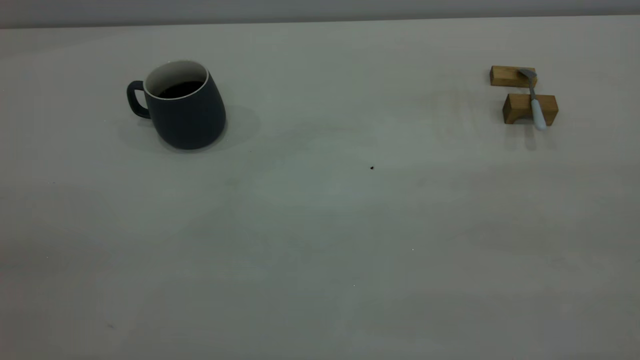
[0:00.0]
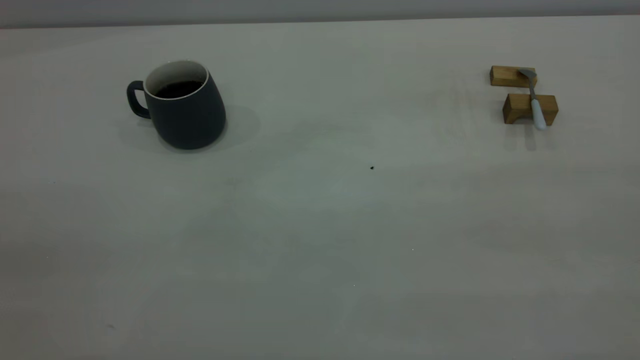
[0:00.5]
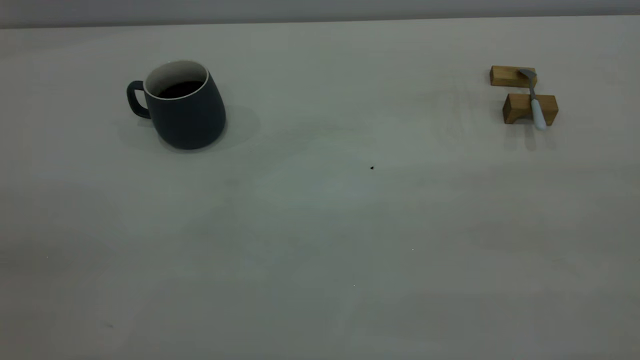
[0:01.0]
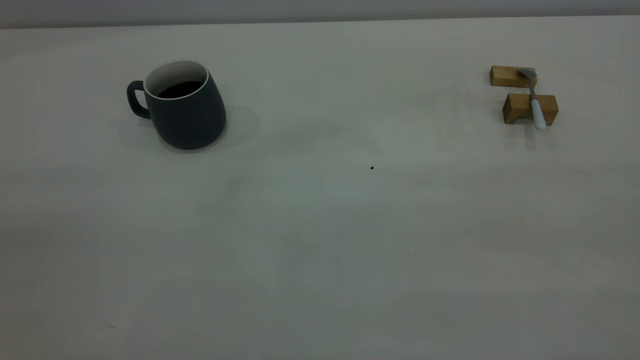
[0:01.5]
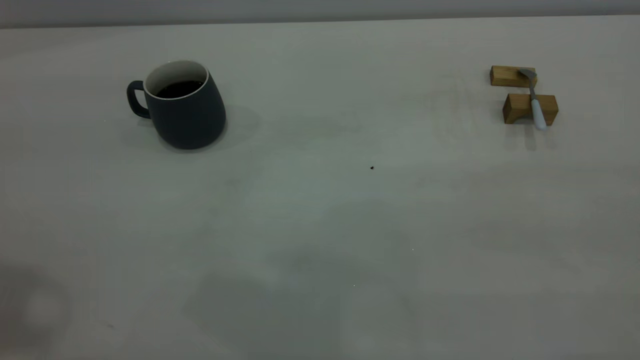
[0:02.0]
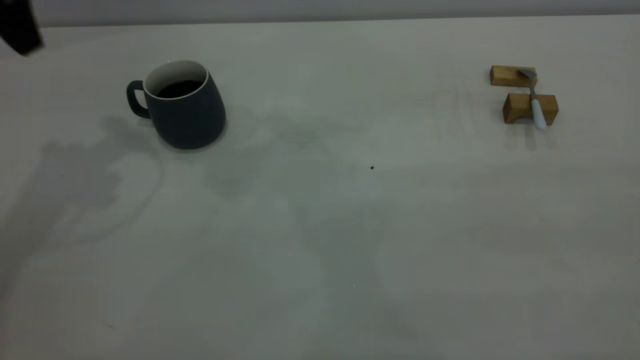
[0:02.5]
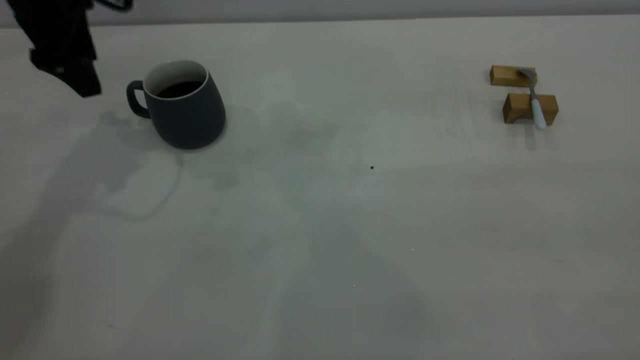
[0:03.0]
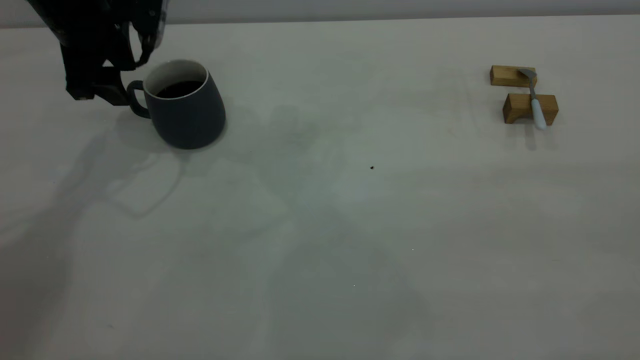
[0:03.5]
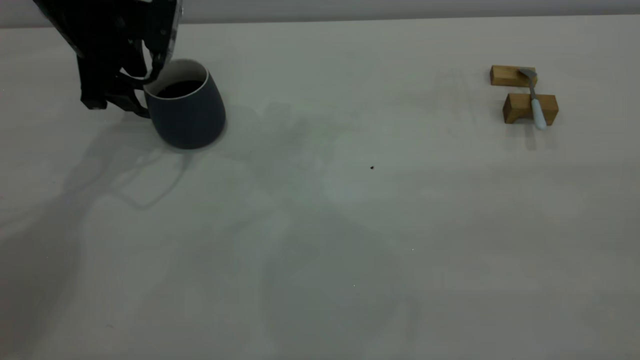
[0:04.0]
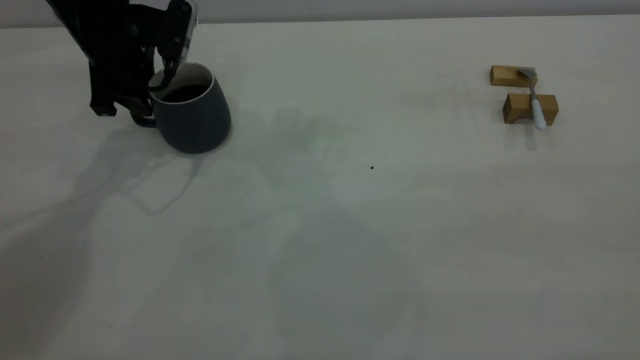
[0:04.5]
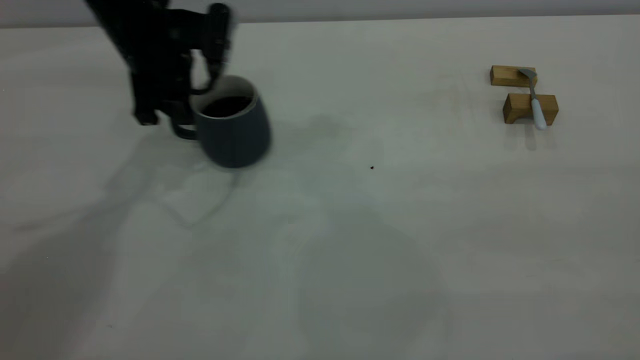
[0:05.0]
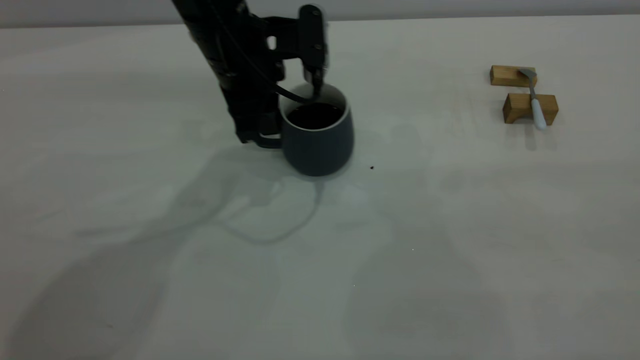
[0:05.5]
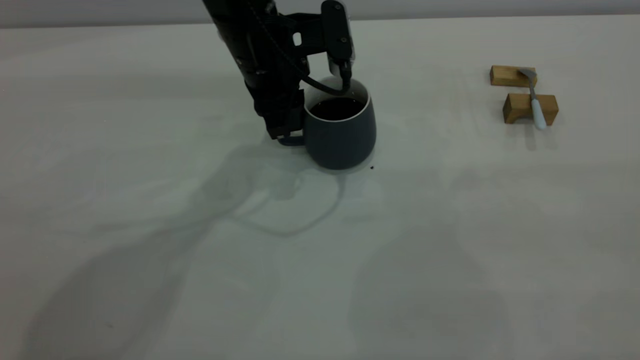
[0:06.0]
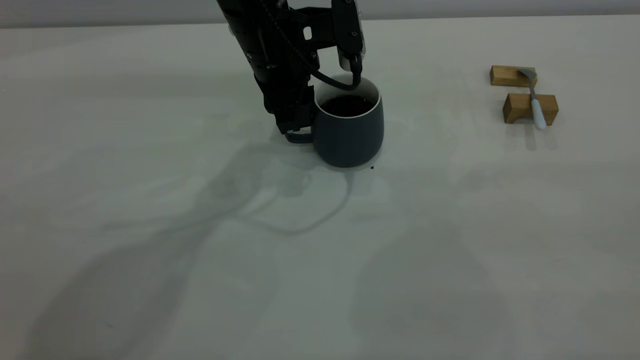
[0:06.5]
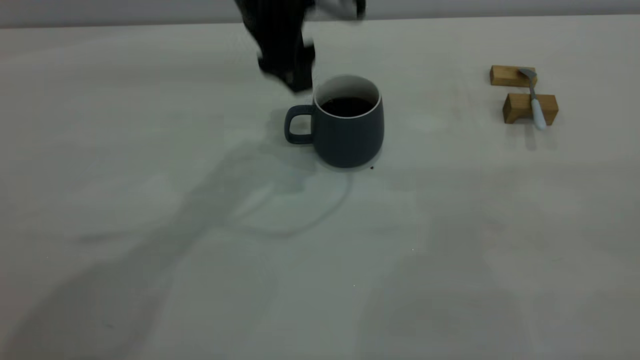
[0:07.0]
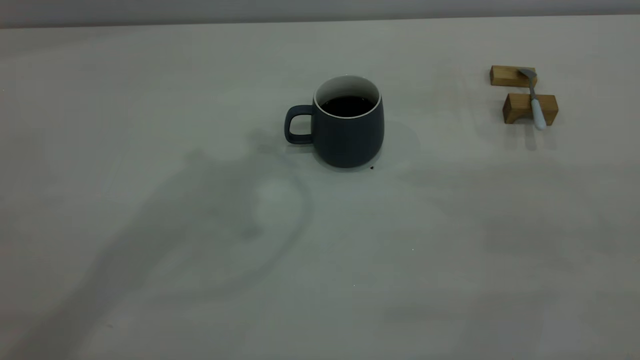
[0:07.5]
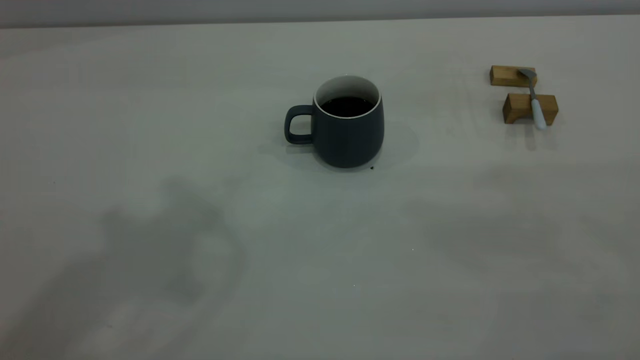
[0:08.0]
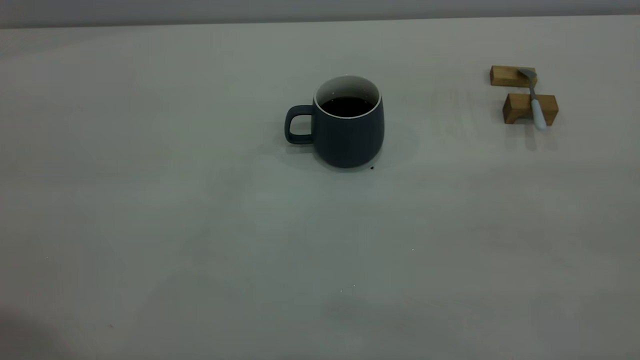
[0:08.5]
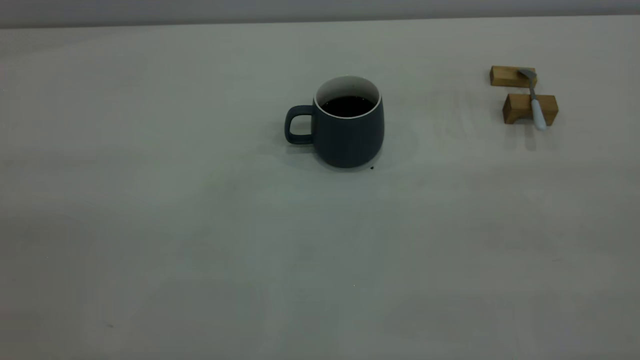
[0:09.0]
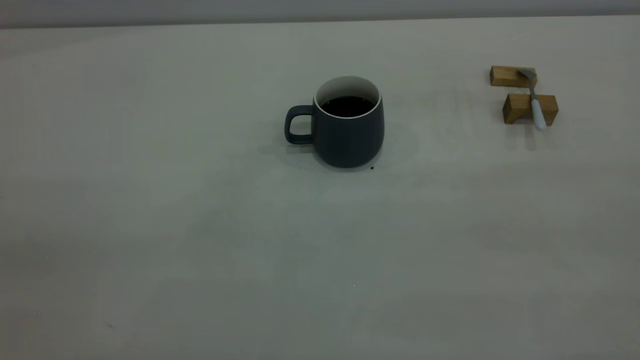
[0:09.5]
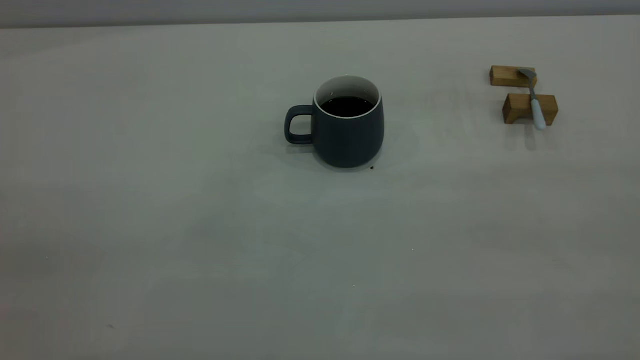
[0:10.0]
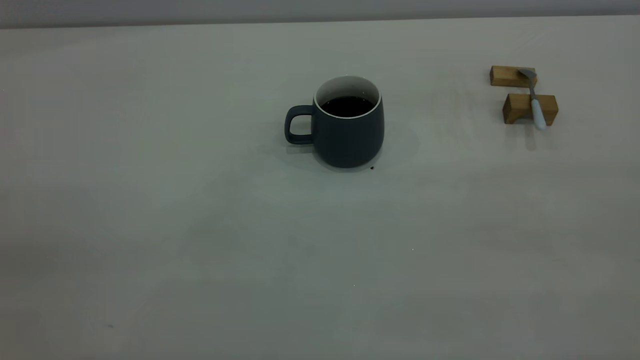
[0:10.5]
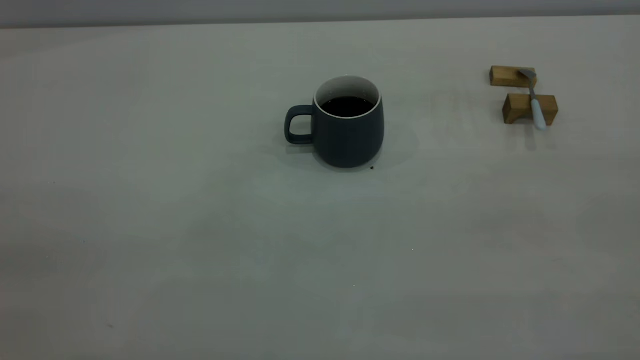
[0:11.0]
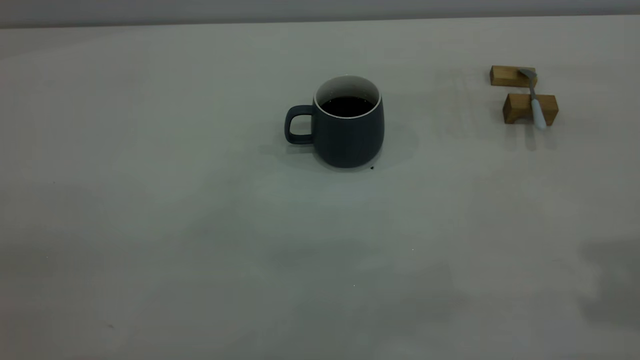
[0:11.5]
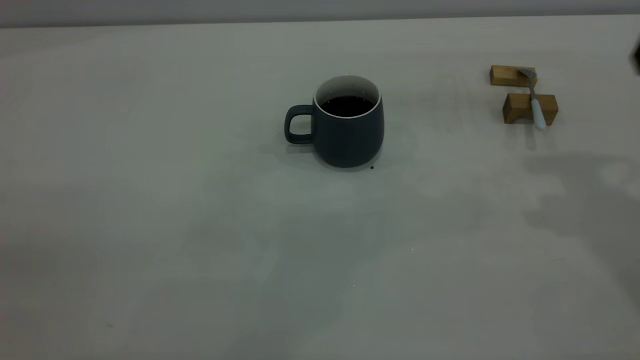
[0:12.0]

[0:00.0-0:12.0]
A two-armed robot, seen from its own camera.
Step, 0:00.0 to 0:07.0: Move the cup with coffee to the center of view.
0:02.0 to 0:04.0: The left gripper moves forward and downward, approximately 35 cm, and opens up.
0:04.0 to 0:06.0: The left gripper shifts approximately 20 cm to the right, and closes.
0:06.0 to 0:08.0: The left gripper goes some 40 cm upward and backward, and opens, then closes once more.

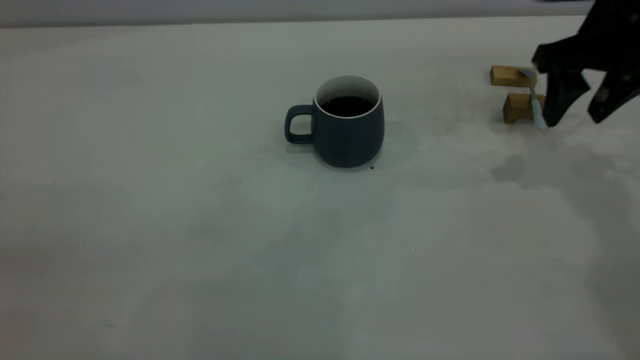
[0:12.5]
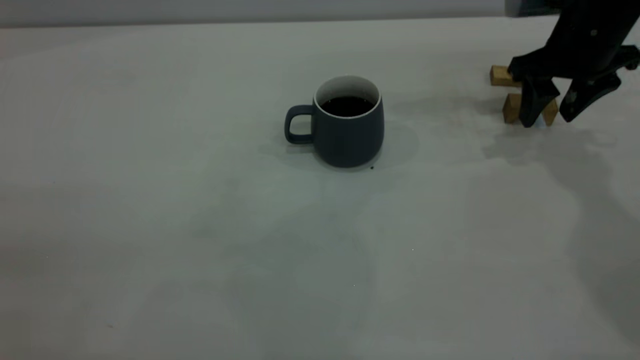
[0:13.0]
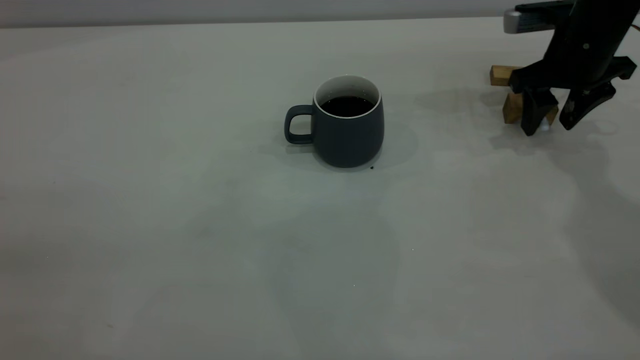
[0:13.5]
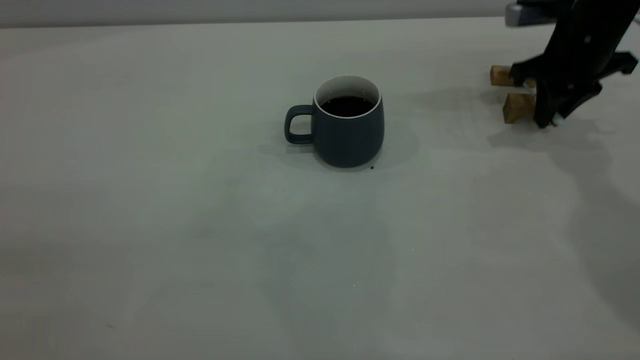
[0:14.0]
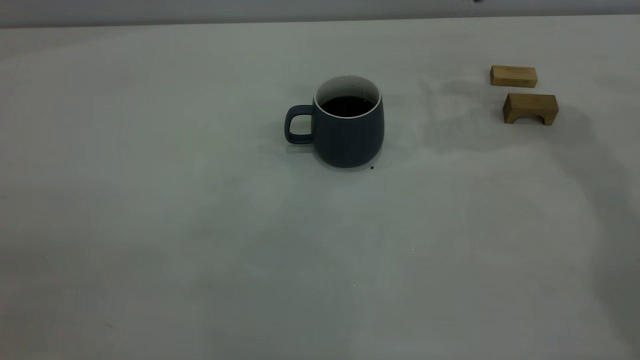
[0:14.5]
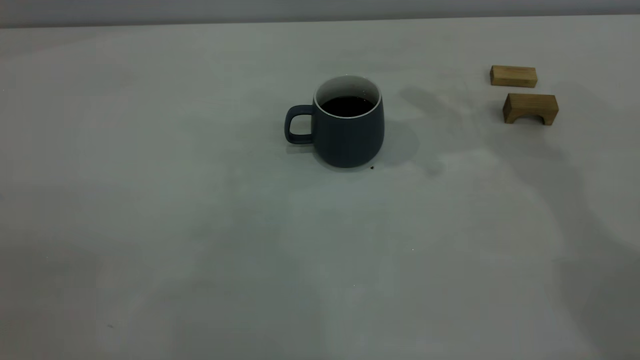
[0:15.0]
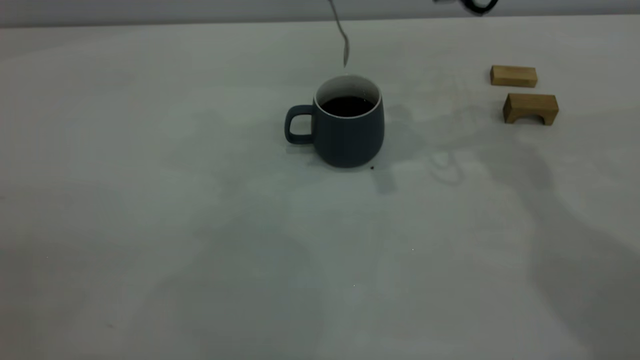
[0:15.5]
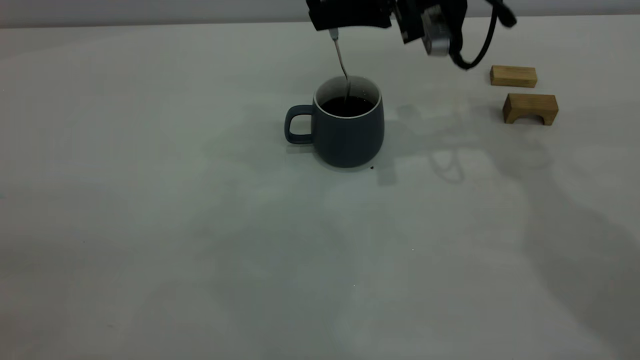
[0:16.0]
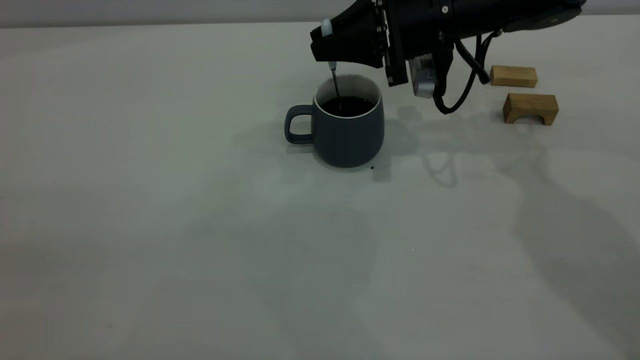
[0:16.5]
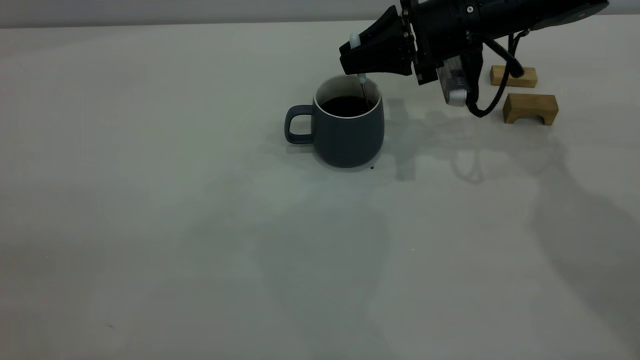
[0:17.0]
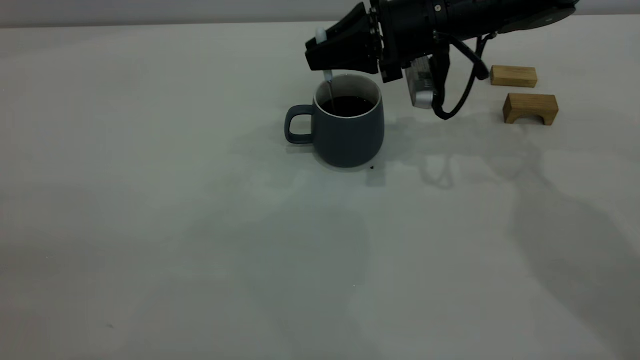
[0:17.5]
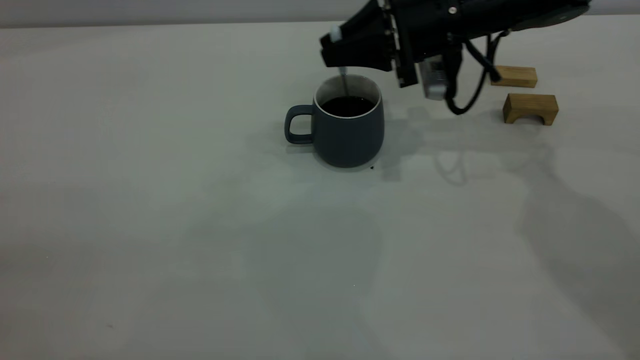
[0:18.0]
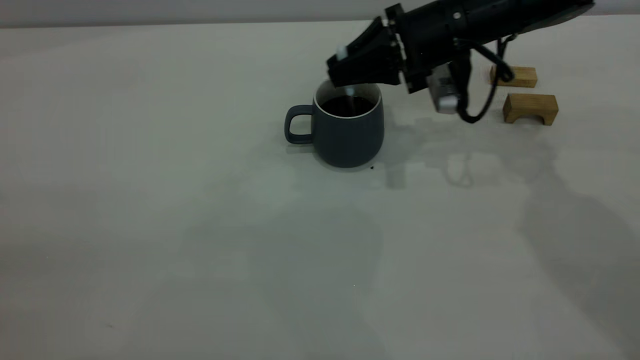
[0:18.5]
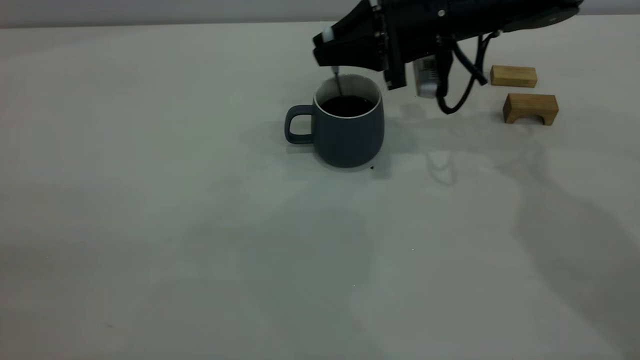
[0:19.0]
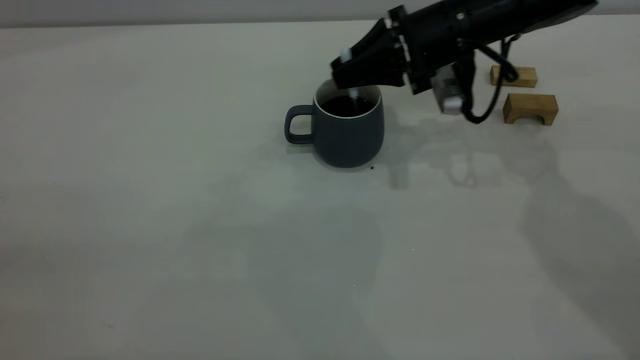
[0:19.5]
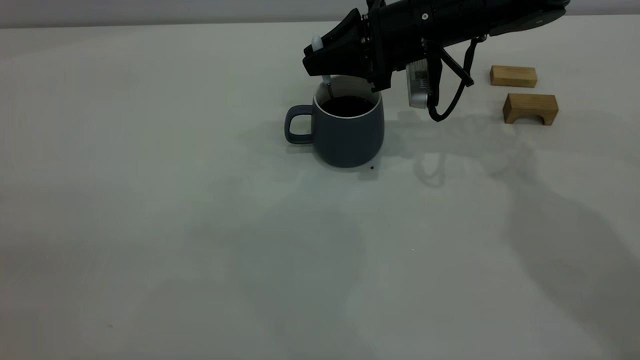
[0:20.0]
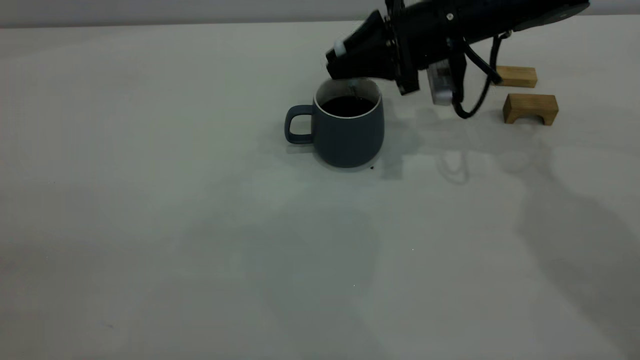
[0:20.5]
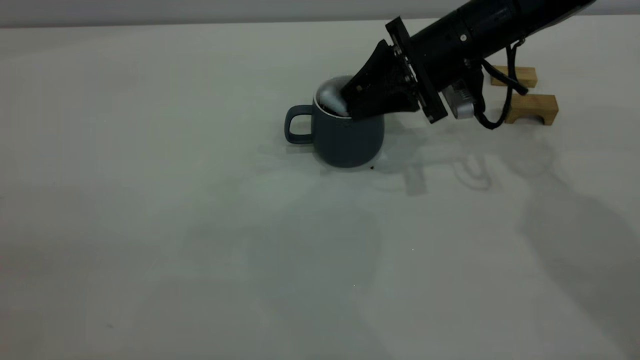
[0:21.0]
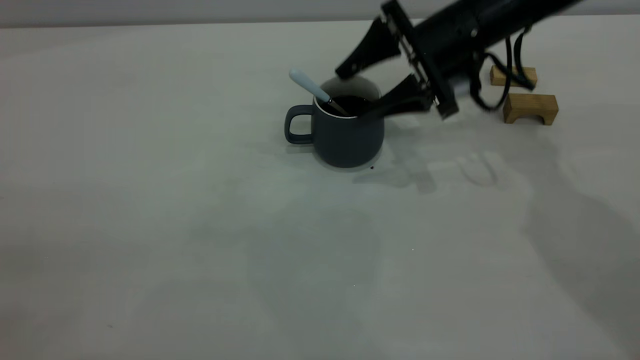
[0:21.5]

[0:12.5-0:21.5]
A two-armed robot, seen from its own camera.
0:12.5 to 0:14.5: The right gripper goes about 10 cm upward and to the left, and closes.
0:14.5 to 0:17.0: The right gripper shifts approximately 15 cm downward and to the left.
0:17.0 to 0:19.5: There are only small adjustments of the grippers.
0:19.5 to 0:21.5: The right gripper opens.
